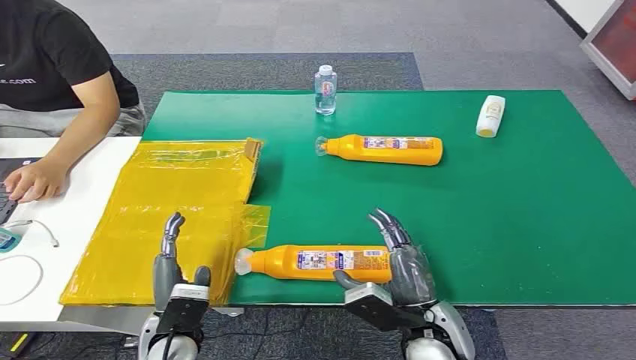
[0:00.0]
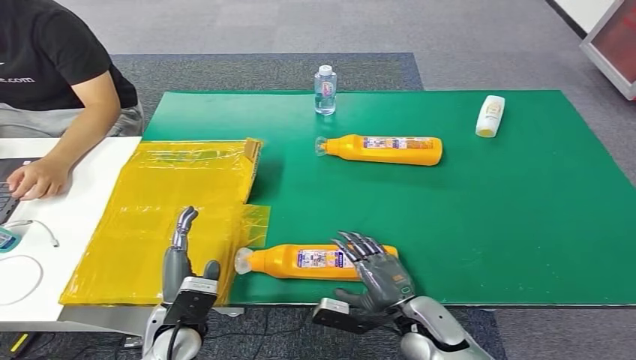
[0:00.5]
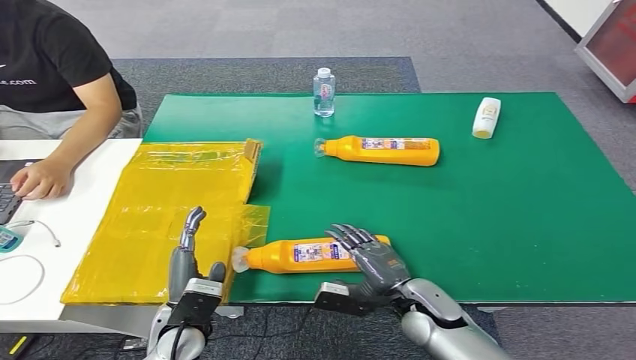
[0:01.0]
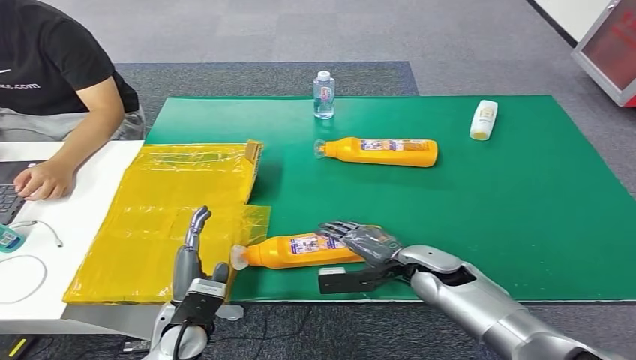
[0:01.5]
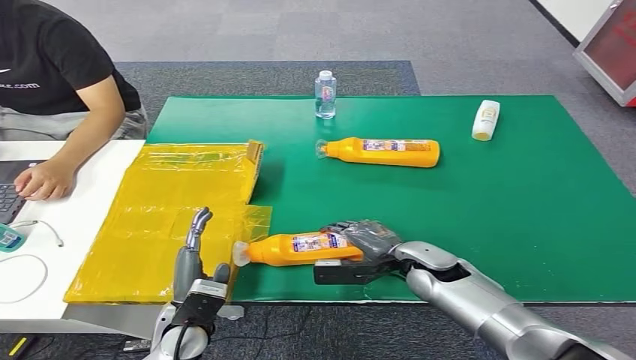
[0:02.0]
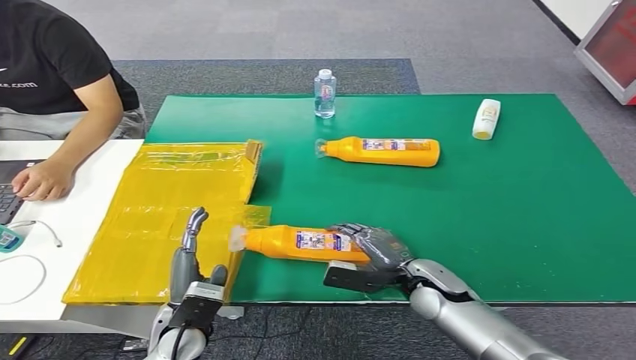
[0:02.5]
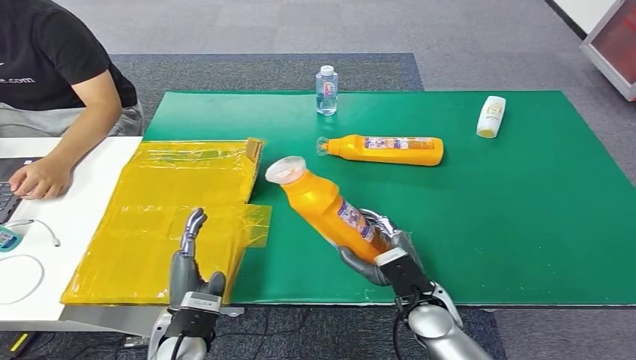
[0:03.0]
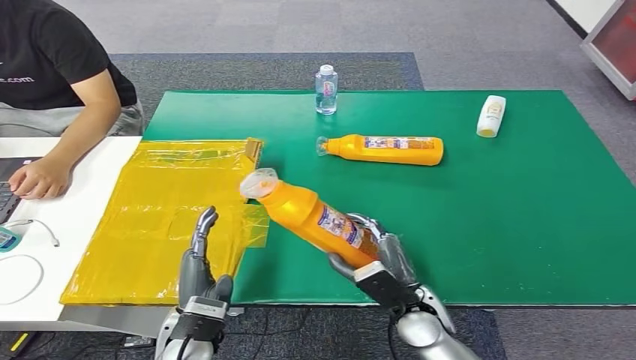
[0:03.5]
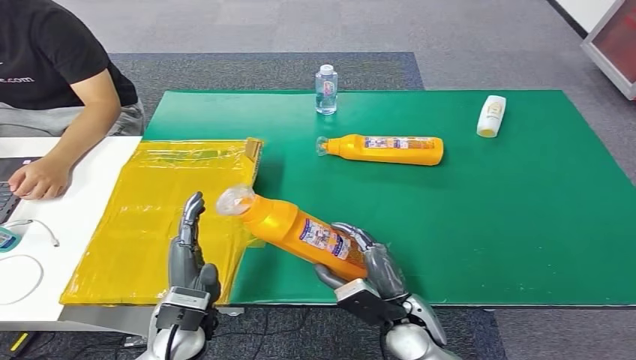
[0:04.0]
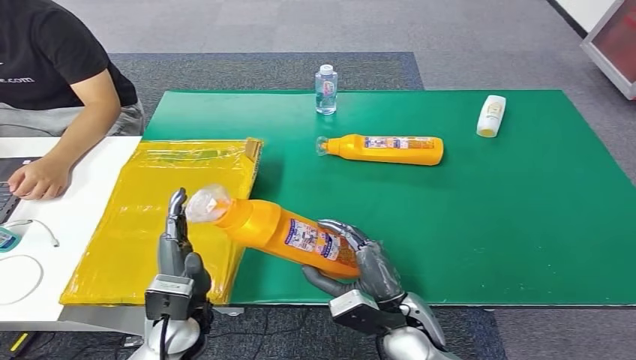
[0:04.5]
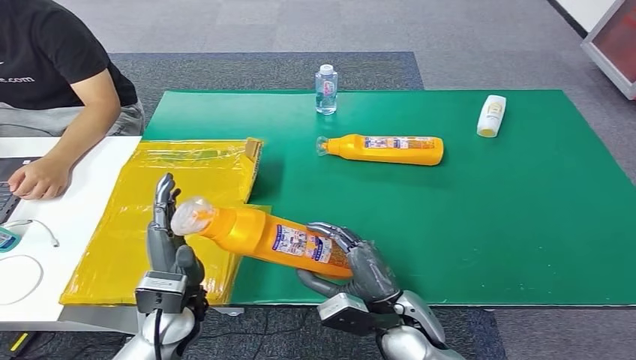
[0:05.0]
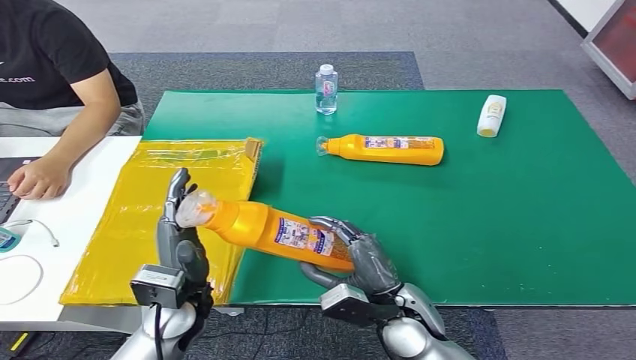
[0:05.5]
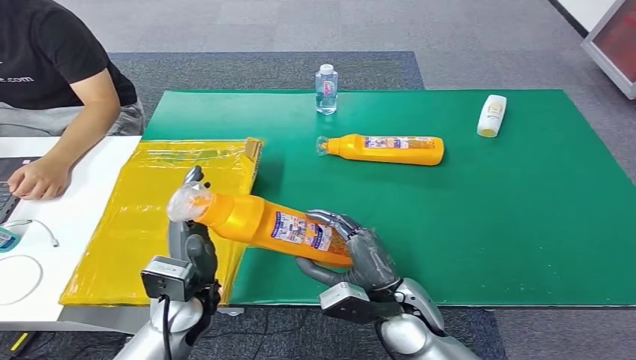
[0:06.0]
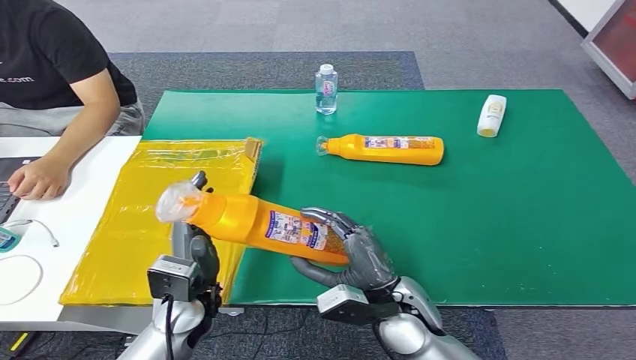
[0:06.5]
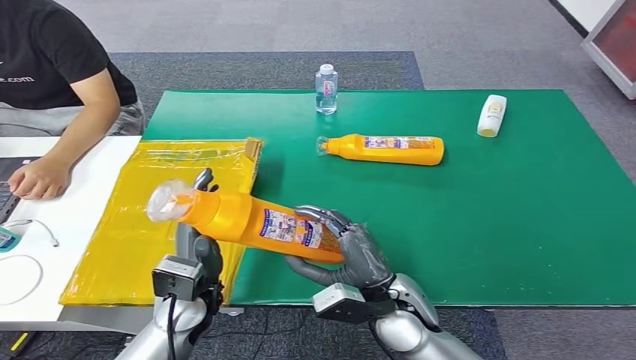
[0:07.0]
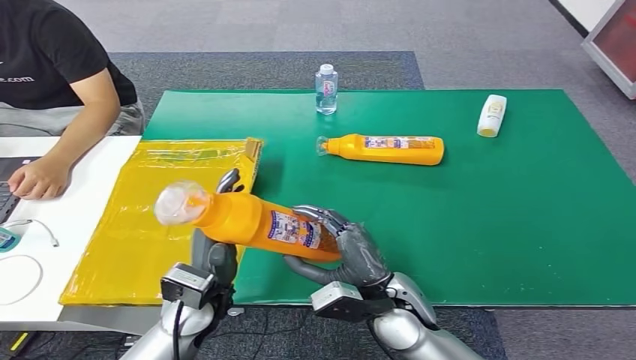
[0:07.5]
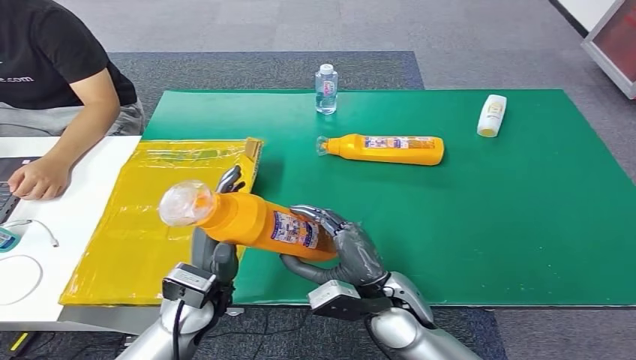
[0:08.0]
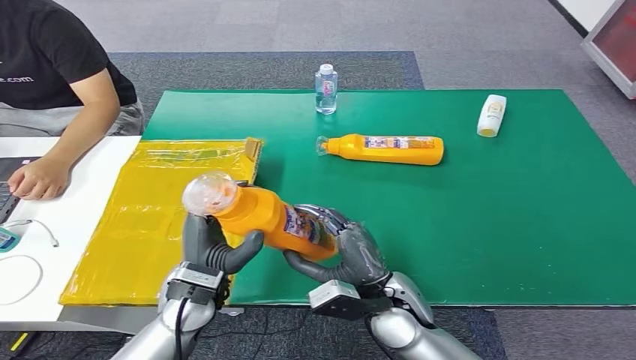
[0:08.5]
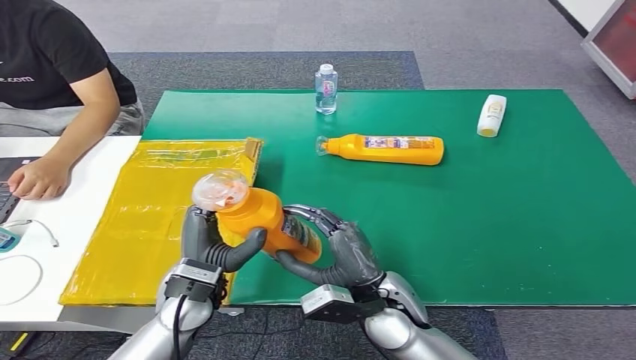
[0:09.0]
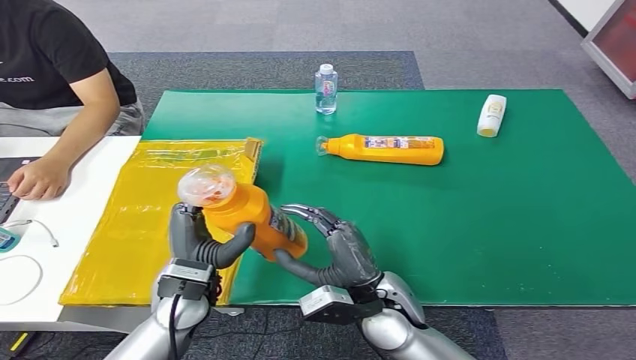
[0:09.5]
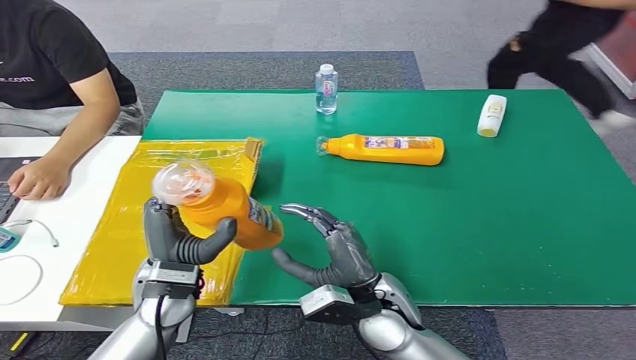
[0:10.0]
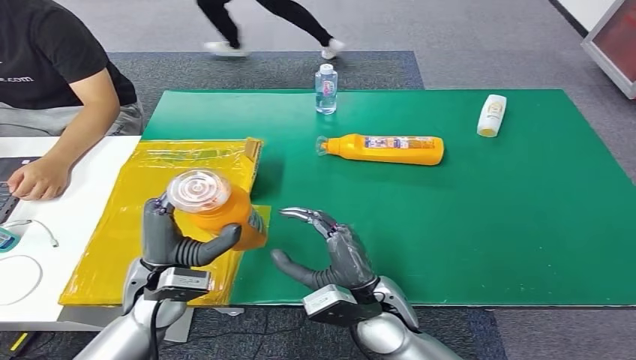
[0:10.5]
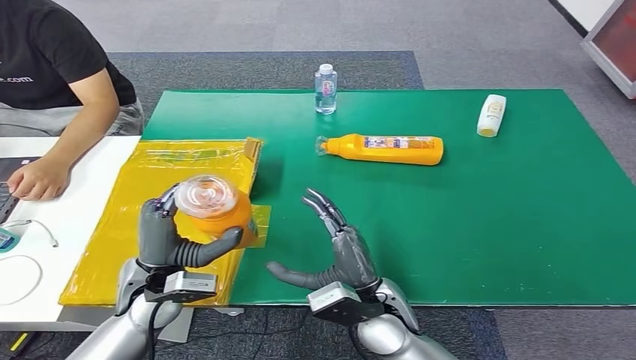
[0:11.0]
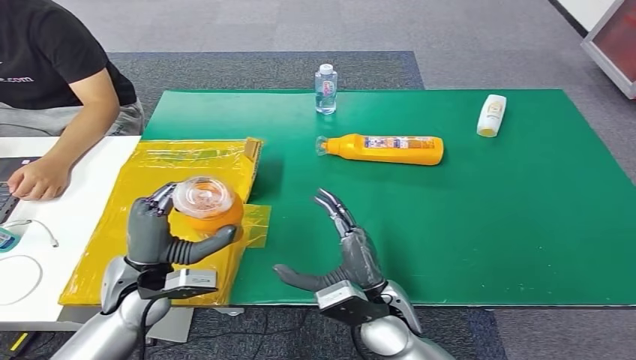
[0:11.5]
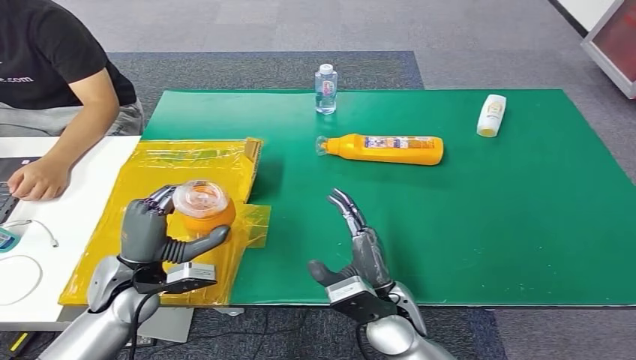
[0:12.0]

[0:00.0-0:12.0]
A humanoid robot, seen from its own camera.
Step, 0:00.0 to 0:03.0: Pick up the bottle from the table.
0:04.0 to 0:06.0: The hands stay close to where they were, moving slightly.
0:06.0 to 0:08.0: The hands make only small movements.
0:10.0 to 0:12.0: The left hand is displaced to the left by roughly 5 cm.

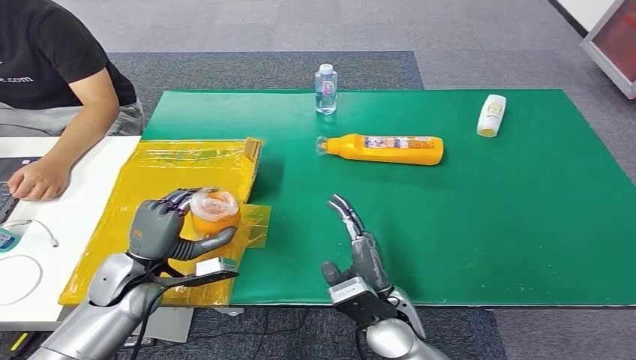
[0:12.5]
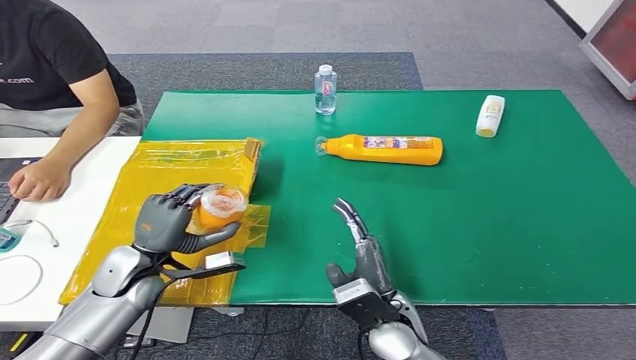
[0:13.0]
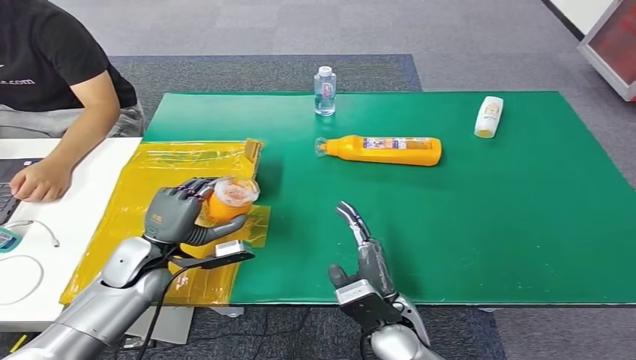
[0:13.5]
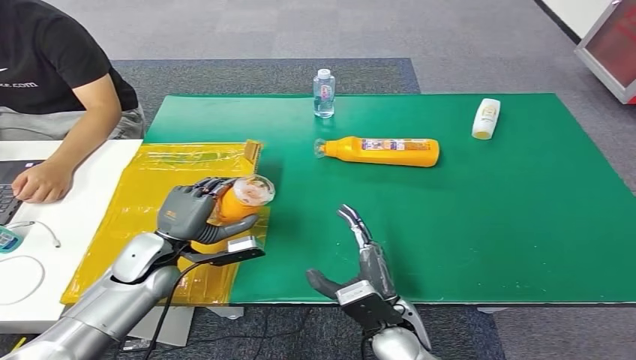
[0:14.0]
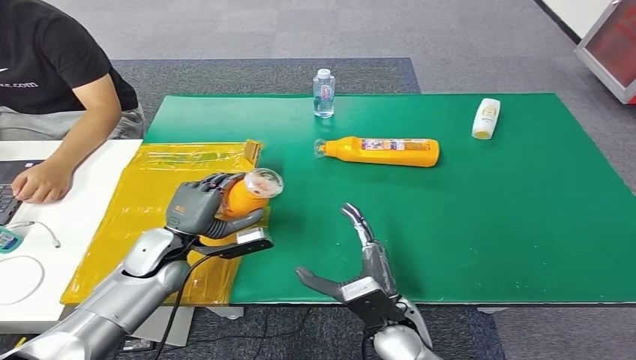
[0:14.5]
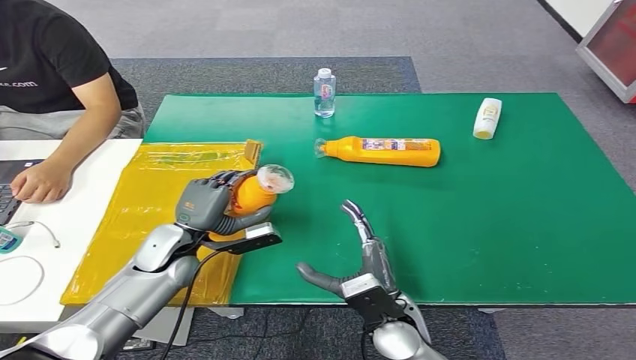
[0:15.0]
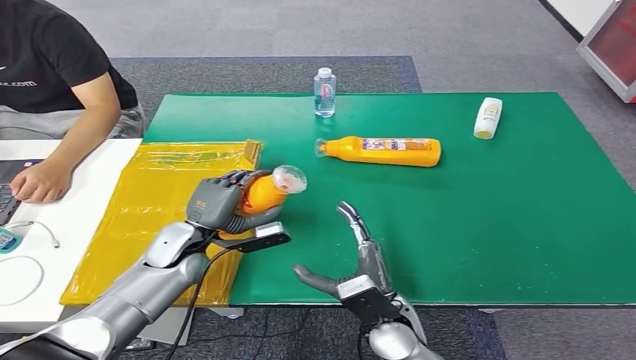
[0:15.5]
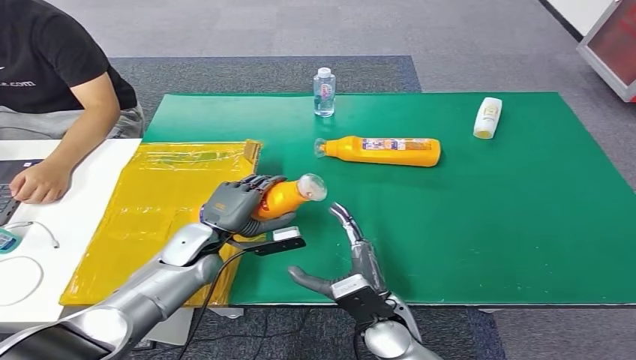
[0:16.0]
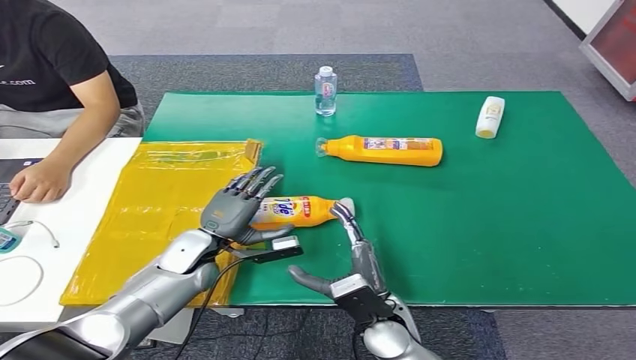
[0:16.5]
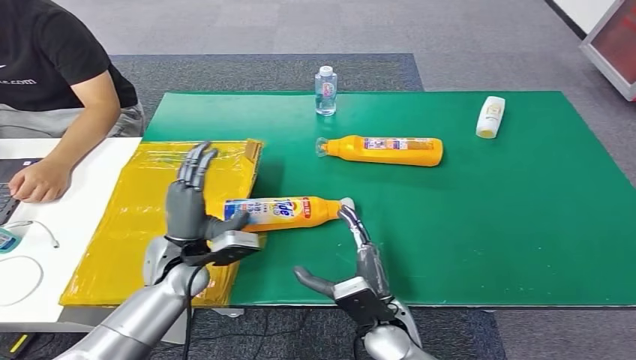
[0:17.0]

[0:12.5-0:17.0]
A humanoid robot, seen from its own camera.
Step, 0:12.5 to 0:17.0: Turn the bottle to the front side.
0:12.5 to 0:14.5: The left hand shifts by some 5 cm.
0:14.5 to 0:17.0: The left hand shifts by roughly 5 cm.
